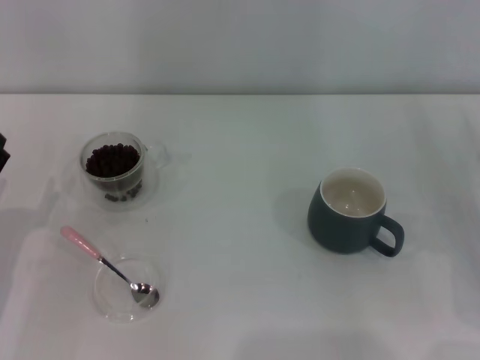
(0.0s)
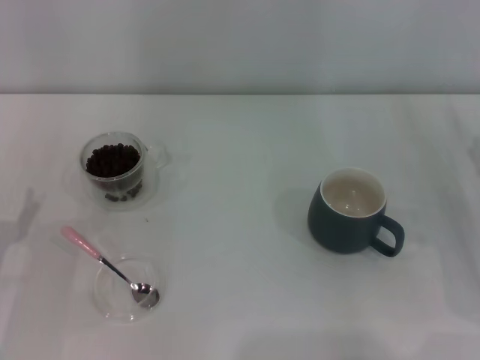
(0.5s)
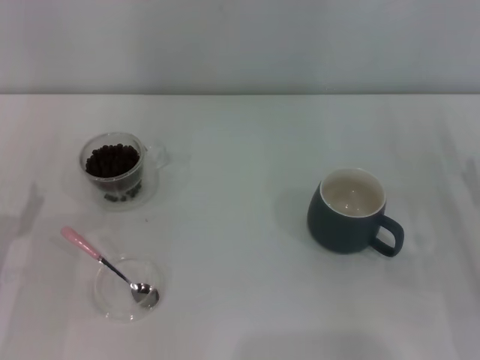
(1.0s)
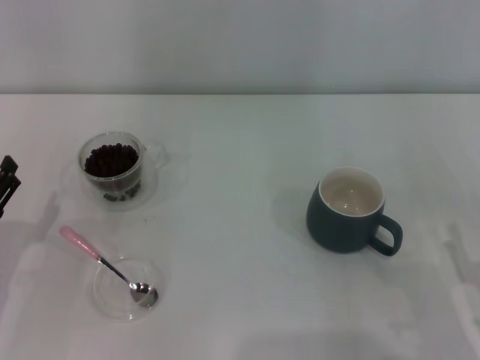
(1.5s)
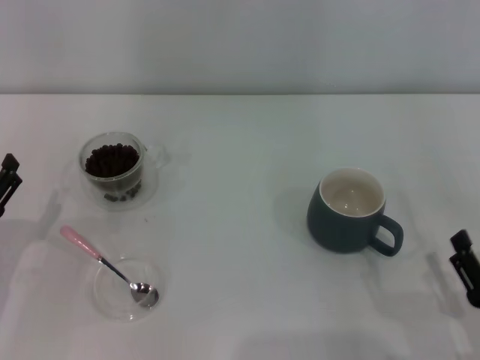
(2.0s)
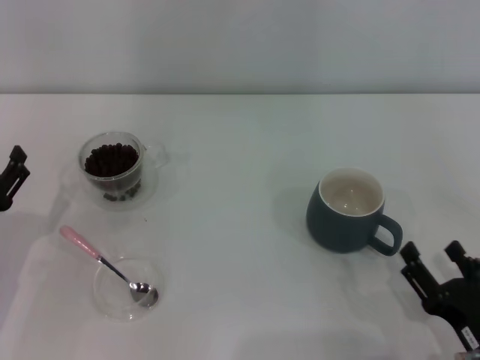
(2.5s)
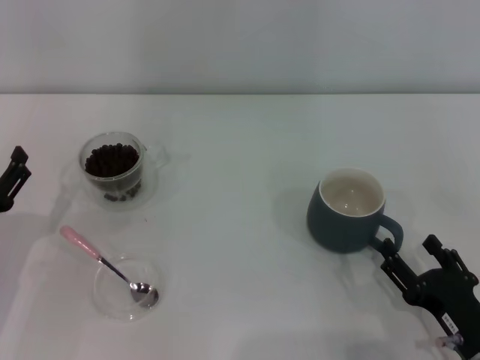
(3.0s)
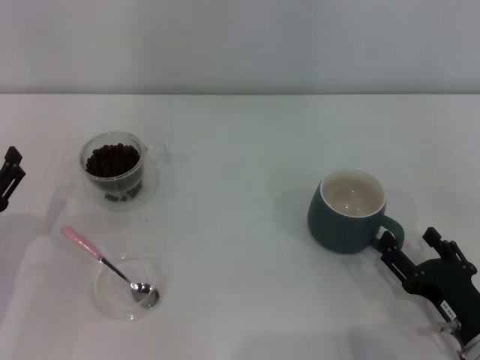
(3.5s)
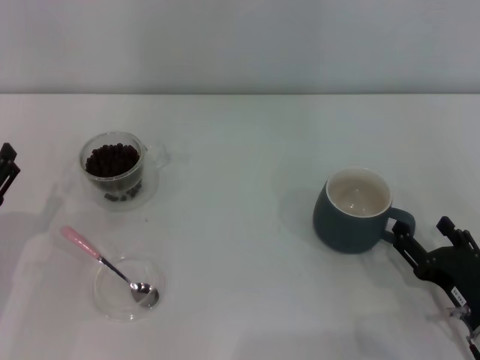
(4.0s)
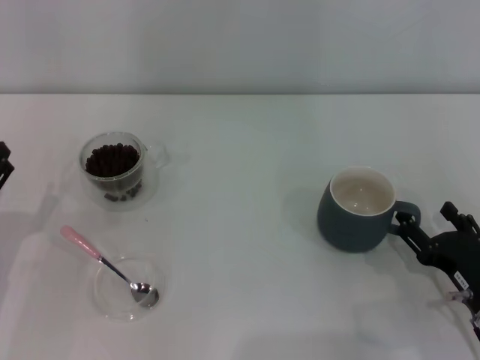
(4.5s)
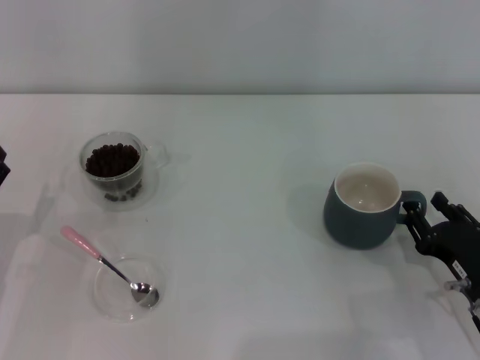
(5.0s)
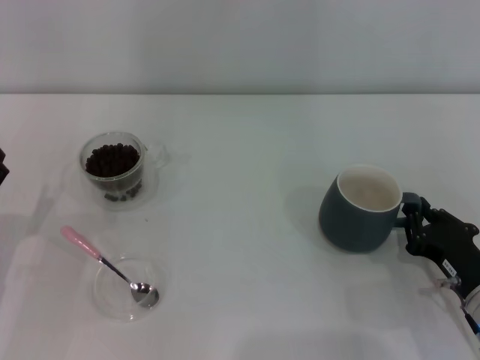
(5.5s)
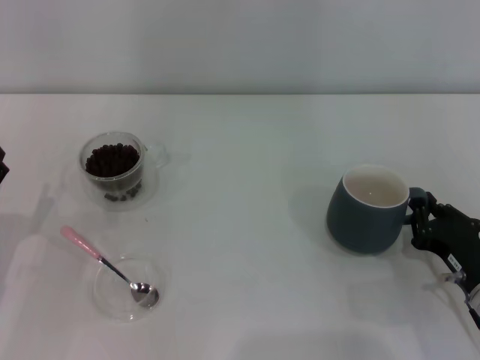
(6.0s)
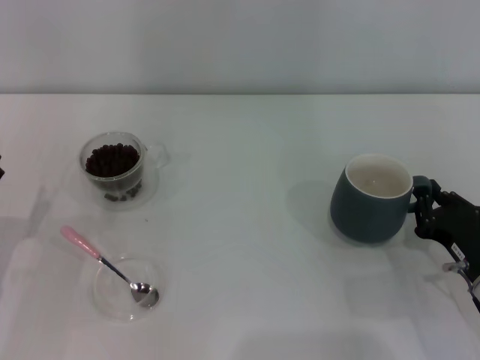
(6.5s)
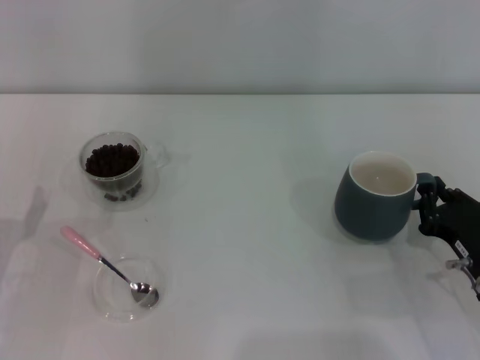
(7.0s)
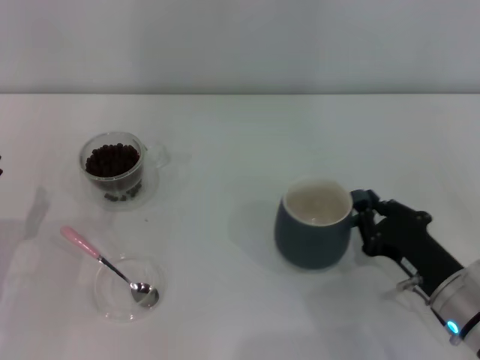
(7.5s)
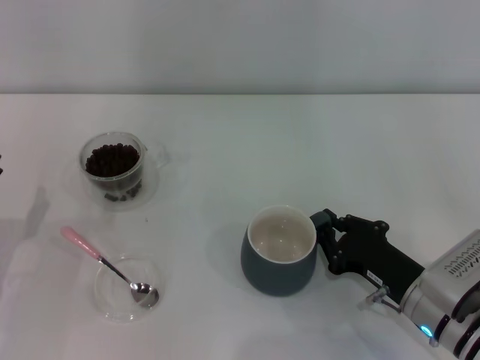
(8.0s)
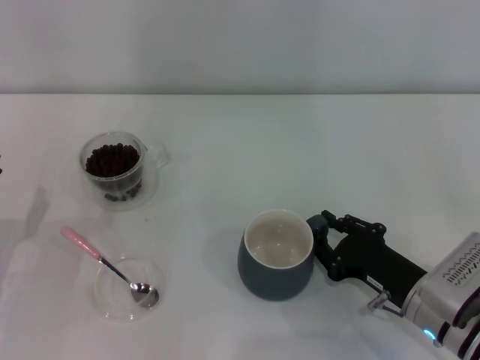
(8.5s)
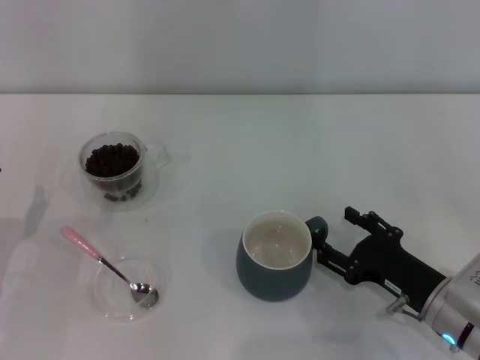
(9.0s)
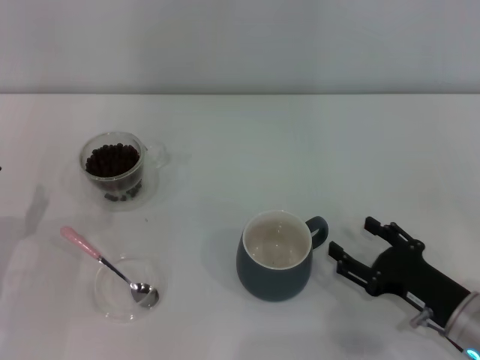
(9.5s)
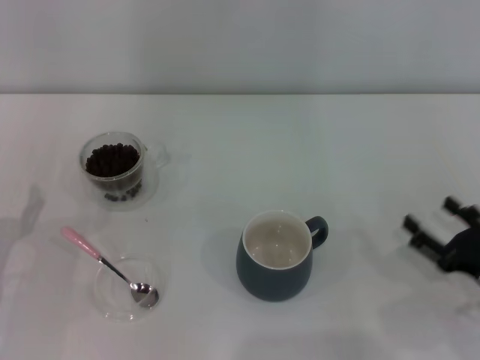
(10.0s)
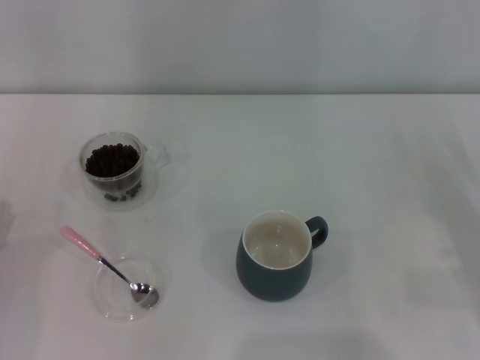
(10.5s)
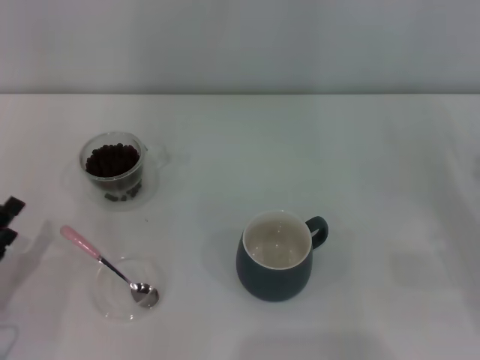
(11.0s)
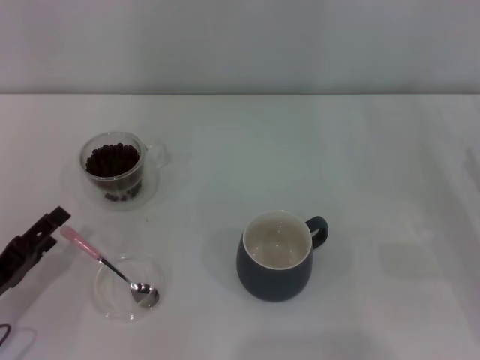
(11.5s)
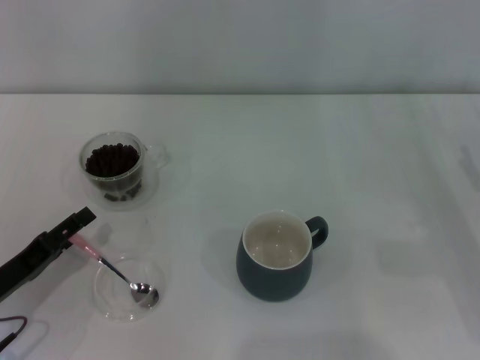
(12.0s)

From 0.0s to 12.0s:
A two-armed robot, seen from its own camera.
Task of the whole recording: Use a pink spoon to take out the coffee beans from the glass and pour them into the gray cup.
Step, from 0.0s to 9.5s: Move the cup to the center of view with the left gripper.
From 0.0s to 2.0s: The right gripper goes approximately 20 cm backward and to the left.
From 2.0s to 4.0s: The right gripper travels forward by roughly 5 cm.
From 4.0s to 6.0s: The right gripper closes up.
From 6.0s to 8.0s: The right gripper is displaced to the left by roughly 5 cm.
From 8.0s to 10.0s: The right gripper moves to the right, roughly 10 cm, and opens its fingers.
From 10.0s to 12.0s: The right gripper goes roughly 5 cm forward.

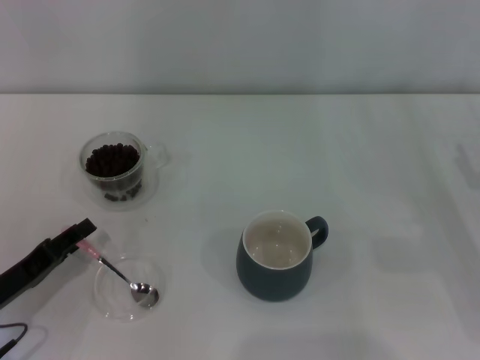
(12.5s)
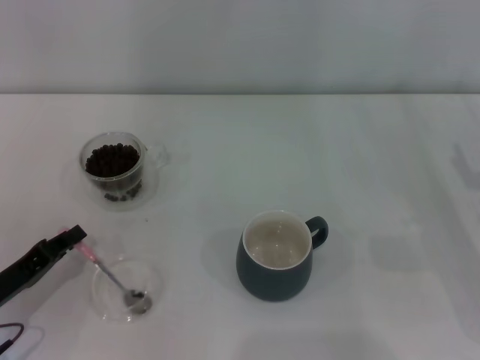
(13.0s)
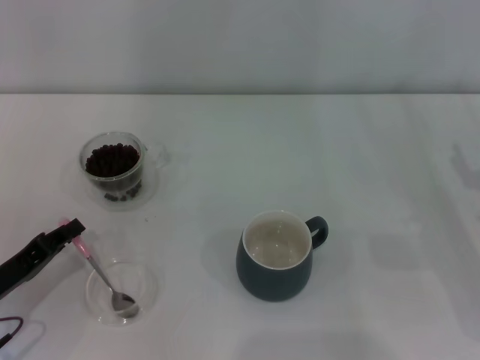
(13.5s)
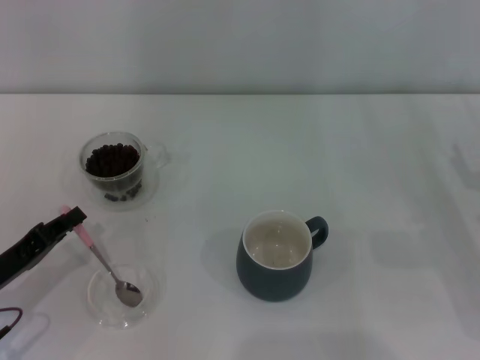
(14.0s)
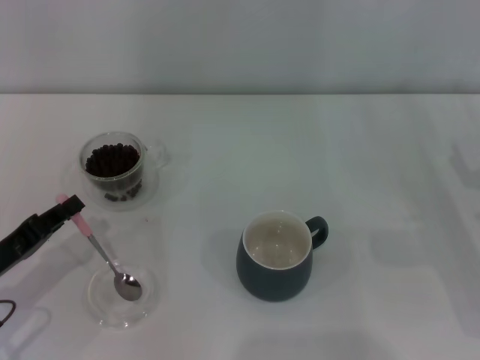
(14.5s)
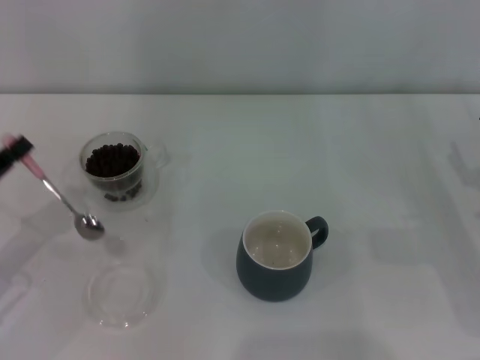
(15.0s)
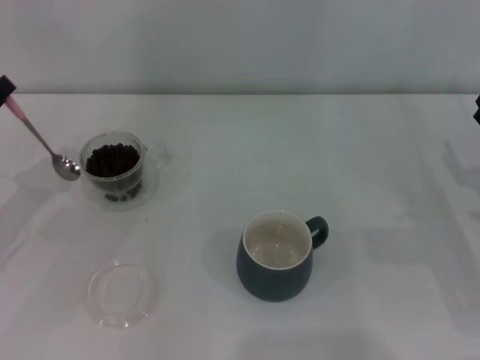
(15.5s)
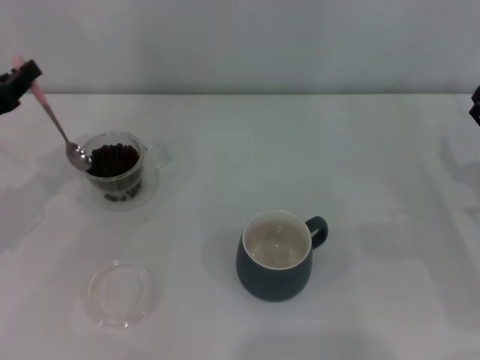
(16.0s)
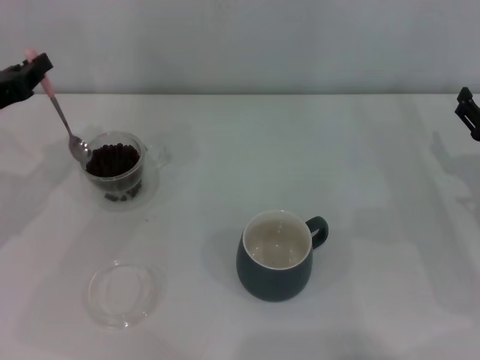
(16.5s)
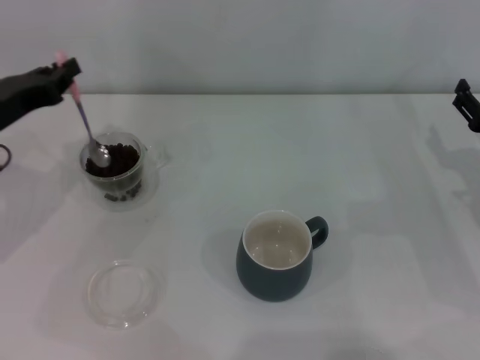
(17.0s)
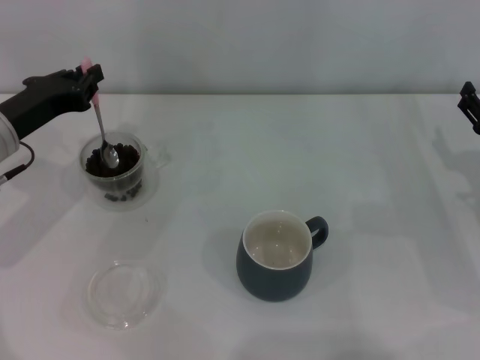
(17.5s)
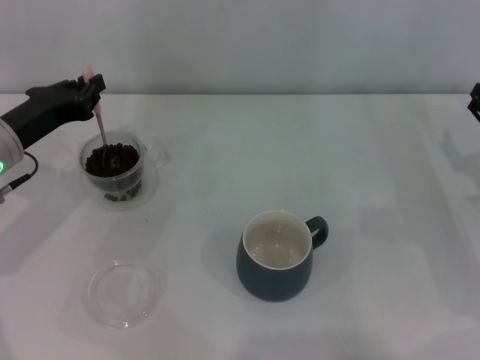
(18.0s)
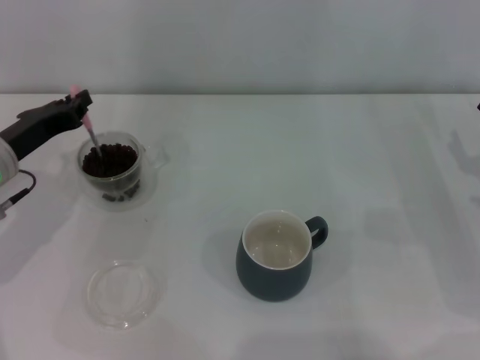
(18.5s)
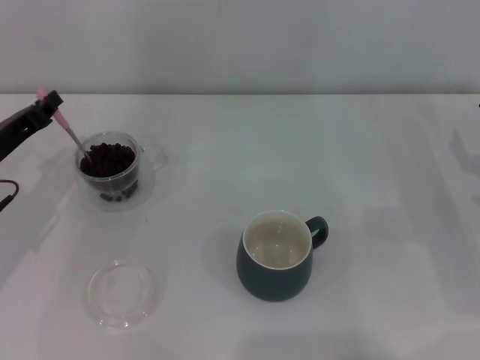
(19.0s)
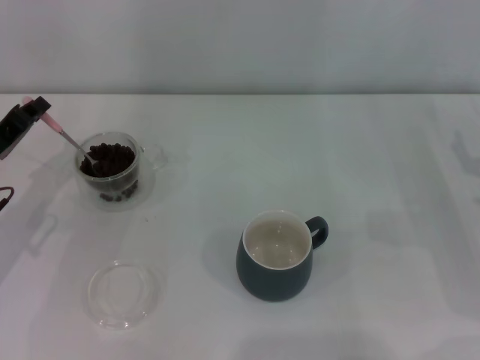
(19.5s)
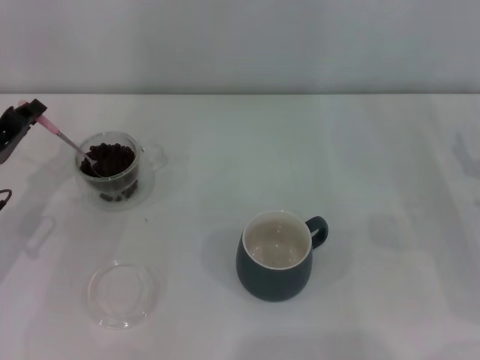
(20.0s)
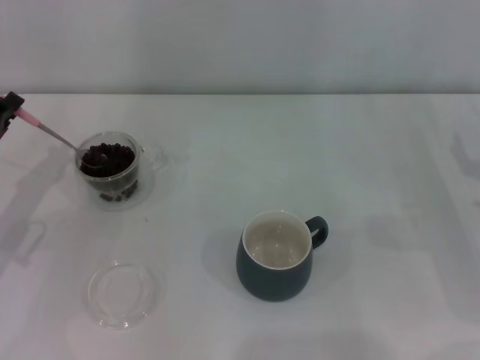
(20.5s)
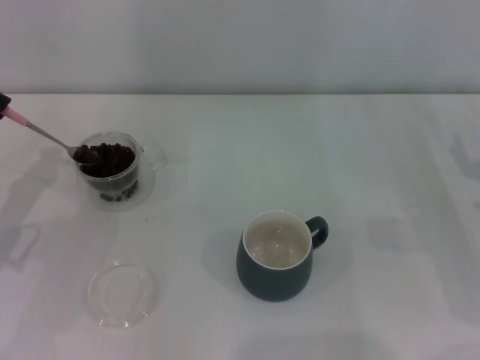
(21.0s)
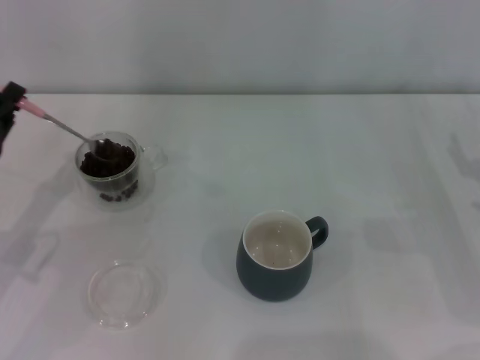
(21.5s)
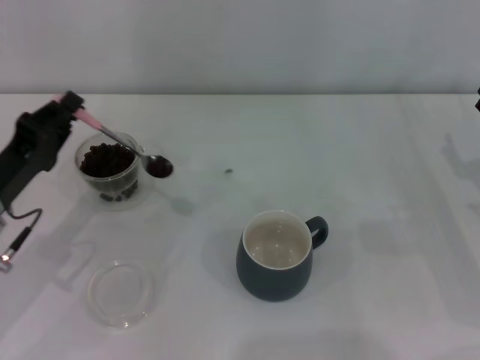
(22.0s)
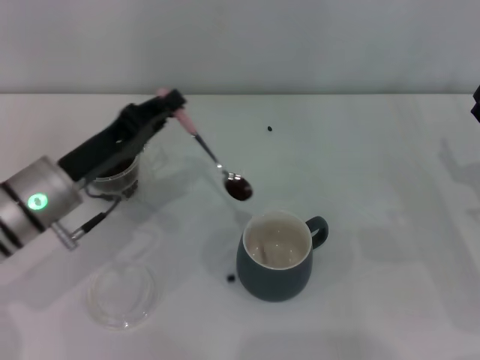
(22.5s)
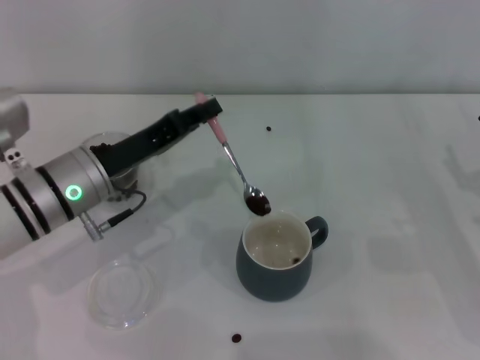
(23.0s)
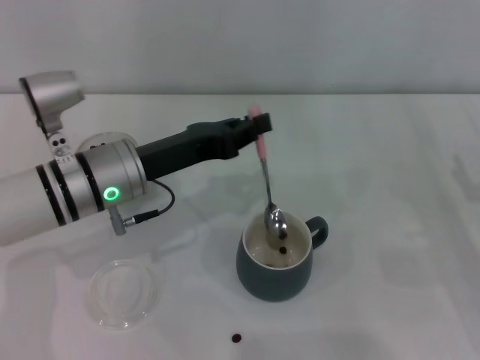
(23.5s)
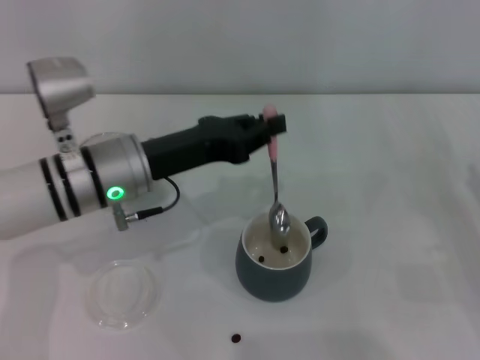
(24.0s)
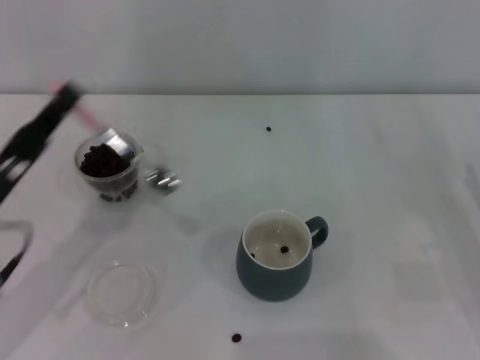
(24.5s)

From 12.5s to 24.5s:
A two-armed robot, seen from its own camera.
Task of the whole recording: Use a pink spoon to take out the coffee beans from the glass and pour them into the gray cup.
Step, from 12.5s to 14.5s: Pick up the spoon with the right gripper.
Step, from 15.0s to 24.0s: Scoop a spoonful of beans into the cup with the right gripper.
From 12.5s to 14.5s: The left gripper closes up.
From 14.5s to 16.5s: The left gripper heads forward and upward, covering approximately 15 cm.
From 16.5s to 18.5s: The left gripper shifts by some 5 cm.
From 18.5s to 20.5s: The left gripper moves roughly 5 cm.
From 20.5s to 22.5s: The left gripper goes approximately 10 cm to the right.
From 22.5s to 24.5s: The left gripper is displaced backward and to the left by roughly 10 cm. The right gripper changes place by about 5 cm.

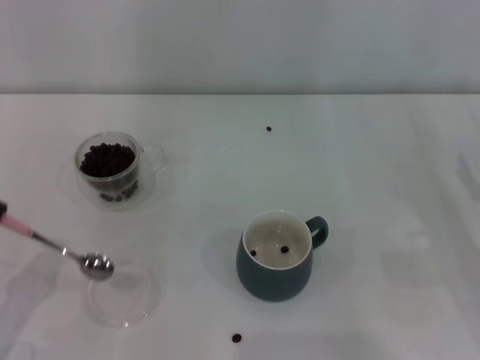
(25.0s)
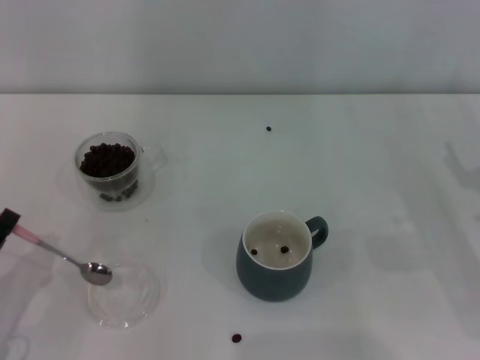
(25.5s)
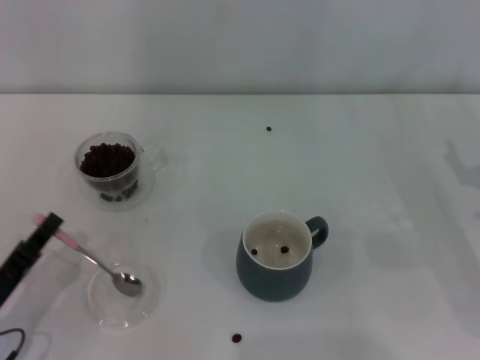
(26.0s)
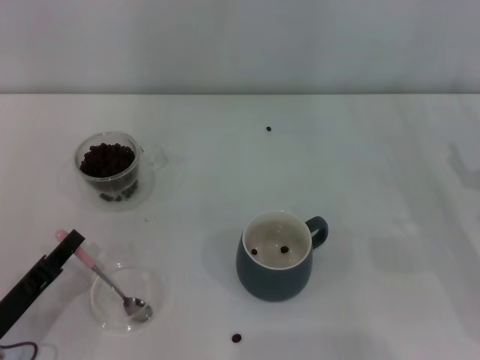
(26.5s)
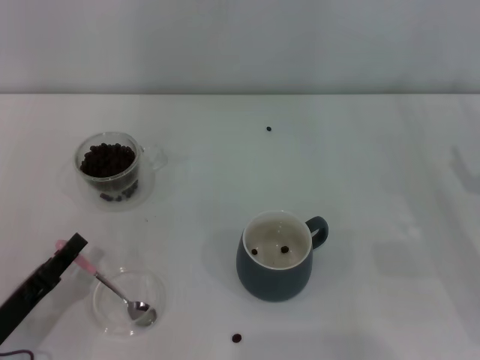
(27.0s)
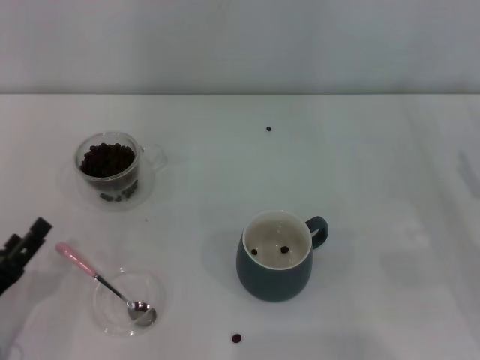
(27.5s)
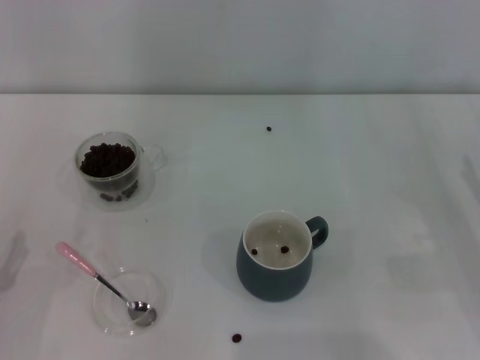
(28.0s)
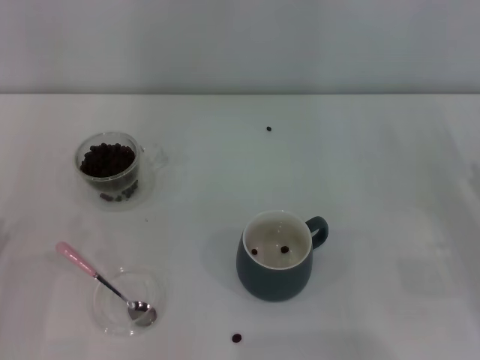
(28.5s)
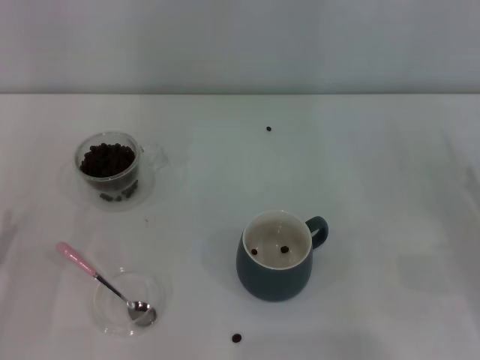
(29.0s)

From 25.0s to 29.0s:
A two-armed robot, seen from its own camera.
Task of the whole recording: Use a pink spoon to take out the coffee beans from the glass and pour them into the gray cup.
Step, from 25.0s to 27.0s: Place the spoon back in its original place with the right gripper.
From 27.0s to 29.0s: The left gripper travels to the left by approximately 5 cm, and opens up.
